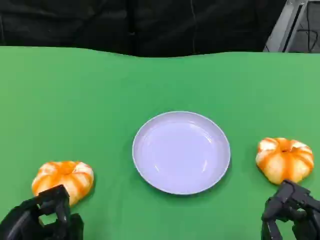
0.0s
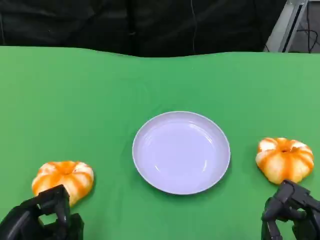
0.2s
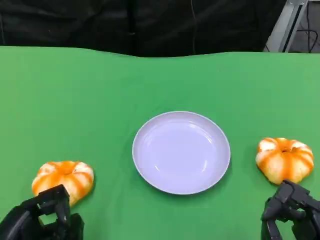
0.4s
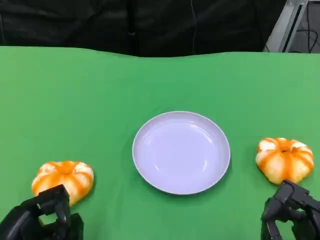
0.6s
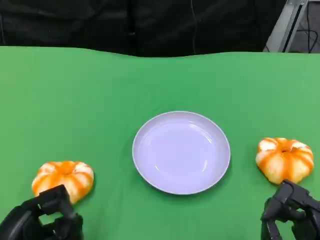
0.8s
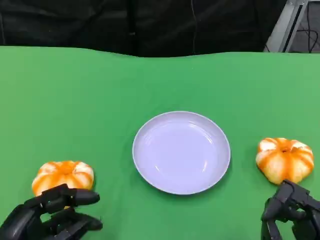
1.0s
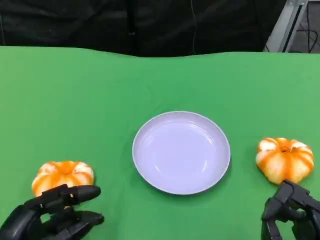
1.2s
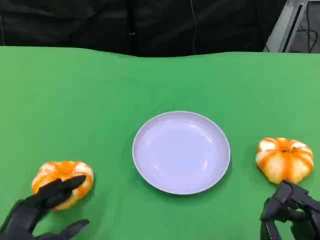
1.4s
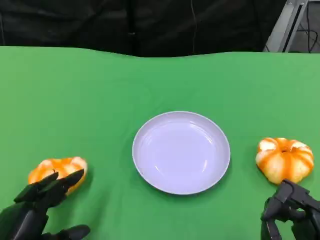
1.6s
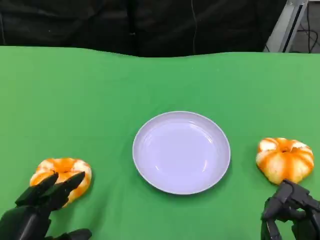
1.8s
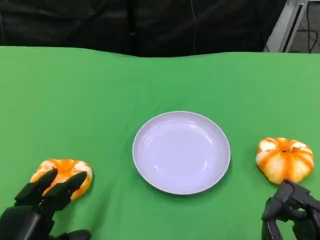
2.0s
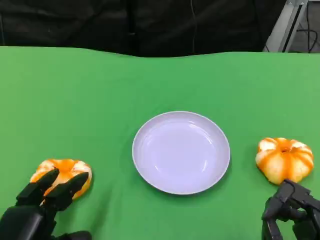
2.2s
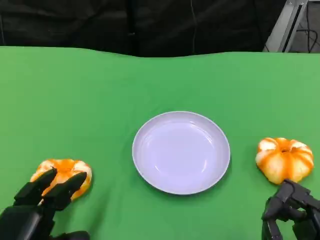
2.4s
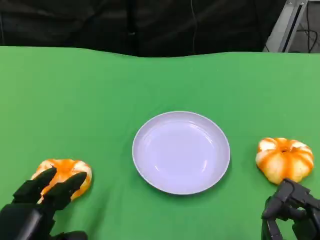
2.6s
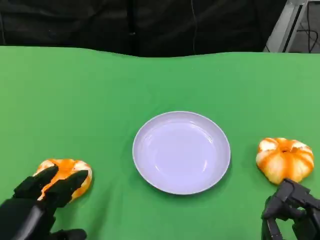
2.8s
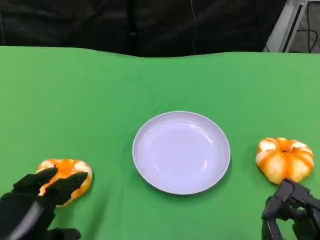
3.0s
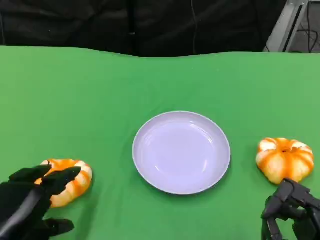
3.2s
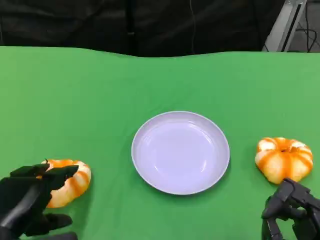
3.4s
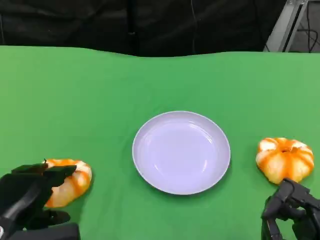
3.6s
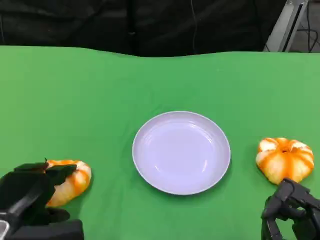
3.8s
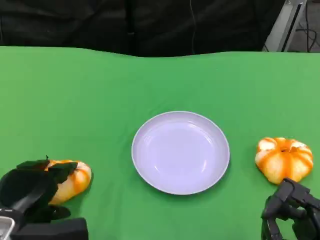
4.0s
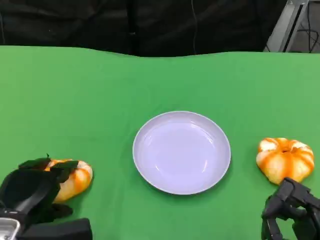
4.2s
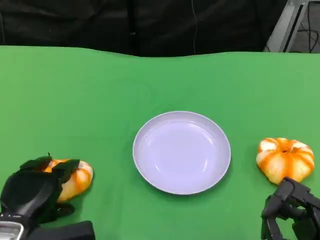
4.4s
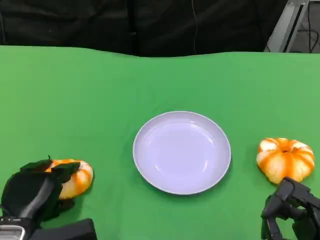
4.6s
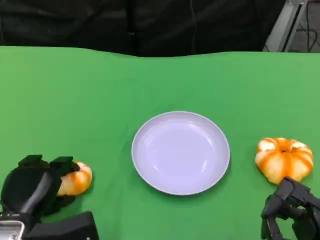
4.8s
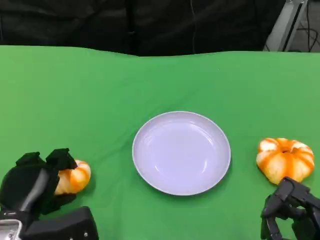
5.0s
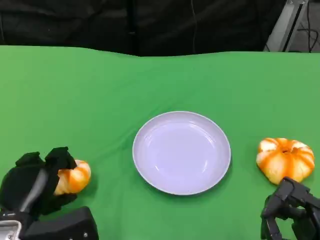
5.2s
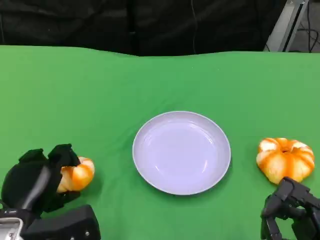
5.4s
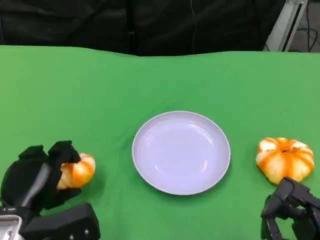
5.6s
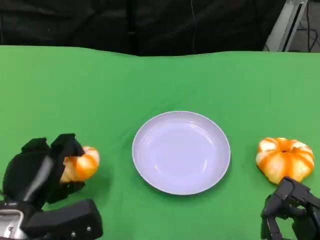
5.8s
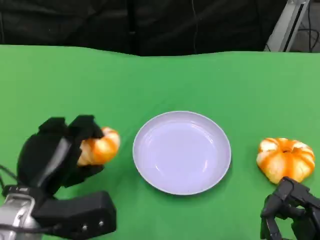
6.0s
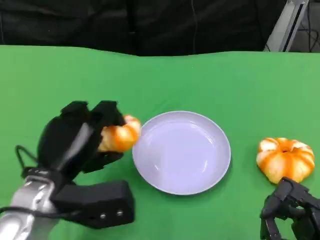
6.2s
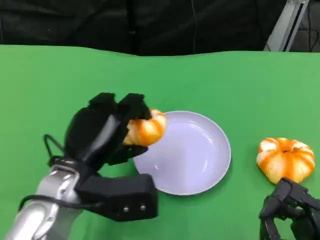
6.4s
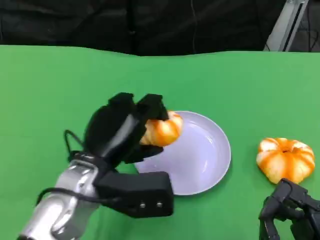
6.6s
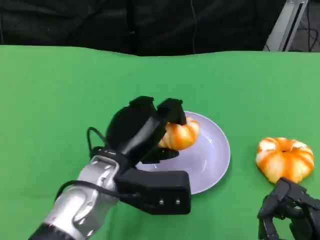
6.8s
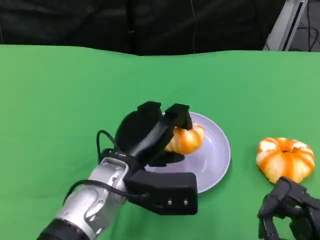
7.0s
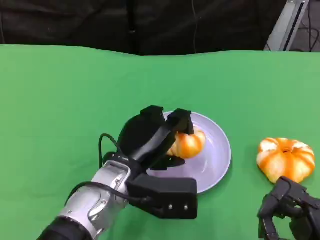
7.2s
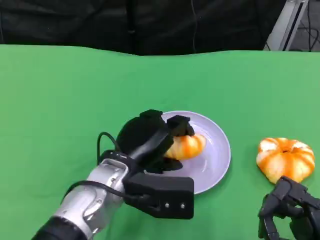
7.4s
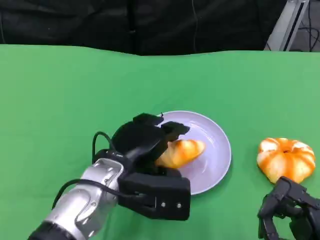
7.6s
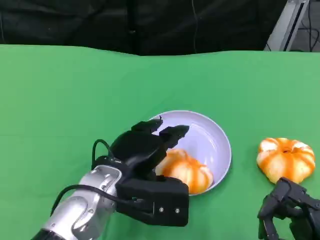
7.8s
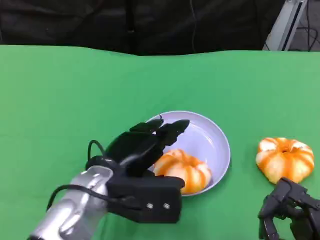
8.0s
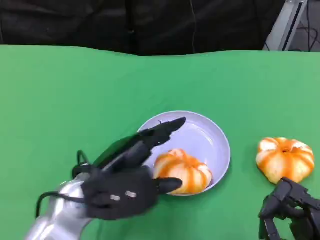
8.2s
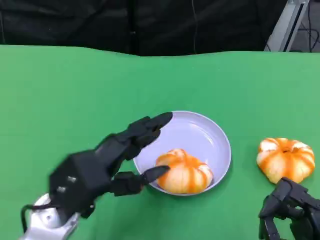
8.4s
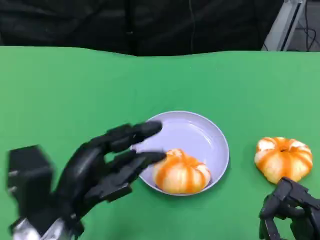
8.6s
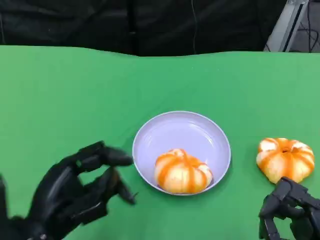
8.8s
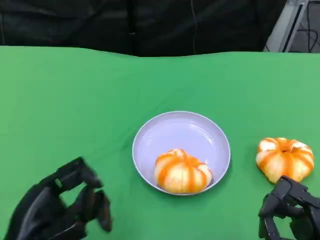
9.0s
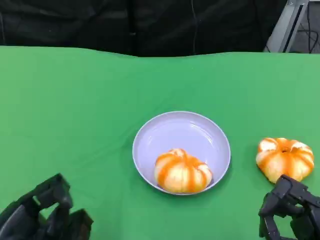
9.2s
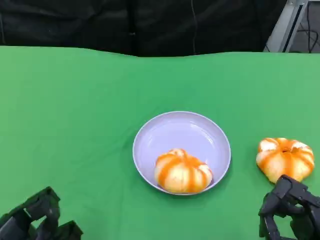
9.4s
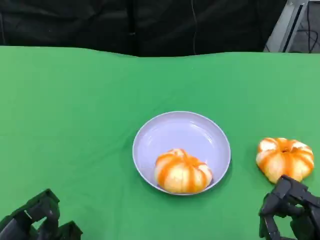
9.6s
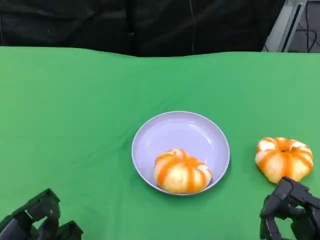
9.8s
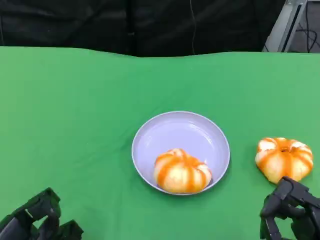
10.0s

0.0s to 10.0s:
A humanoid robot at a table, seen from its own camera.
Task of the whole recording: Grasp the bread from the table and place it into the plate.
2.8s to 4.2s: The left hand is displaced forward by roughly 5 cm.
5.8s to 7.2s: The left hand is displaced to the right by roughly 15 cm.
7.2s to 8.6s: The left hand travels to the left and backward by roughly 10 cm.
8.6s to 10.0s: The left hand moves to the left, downward and backward, some 15 cm.

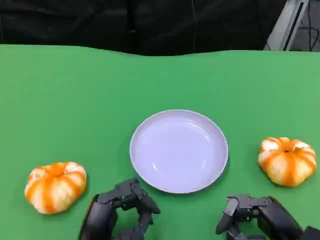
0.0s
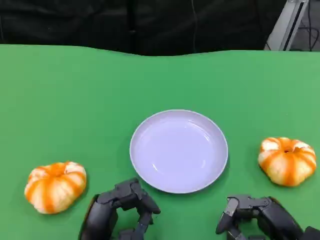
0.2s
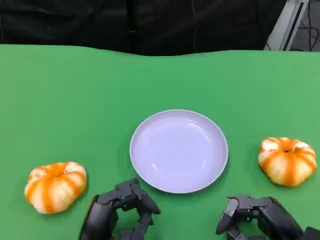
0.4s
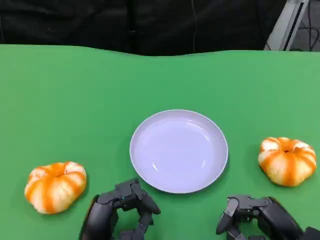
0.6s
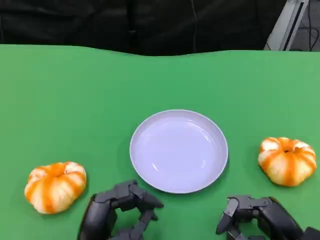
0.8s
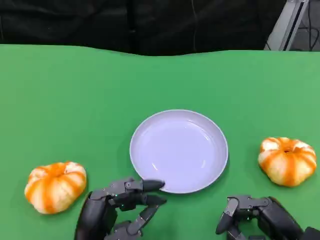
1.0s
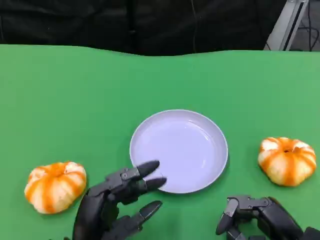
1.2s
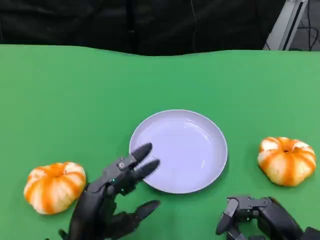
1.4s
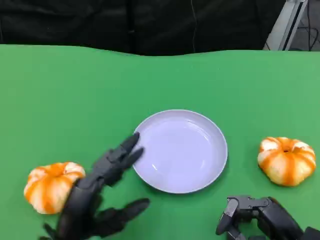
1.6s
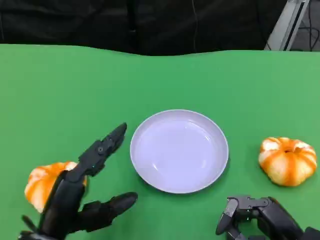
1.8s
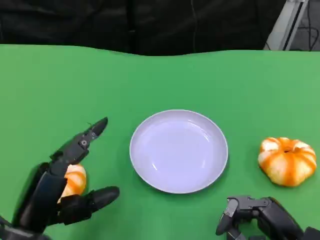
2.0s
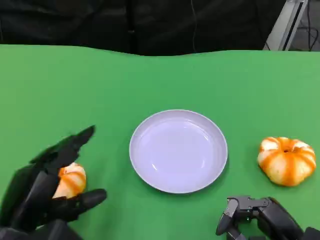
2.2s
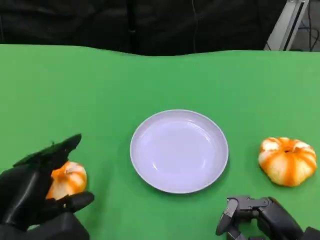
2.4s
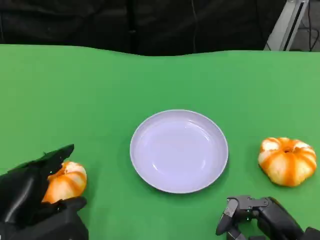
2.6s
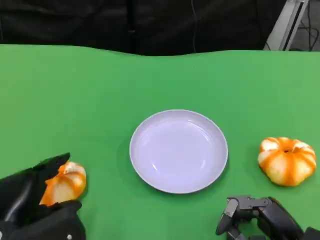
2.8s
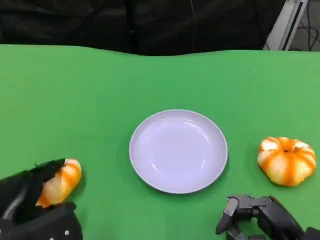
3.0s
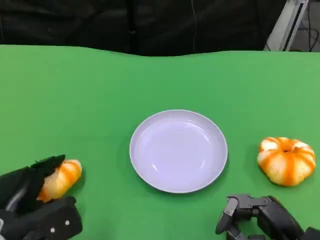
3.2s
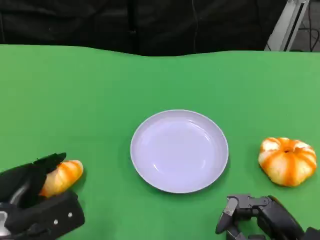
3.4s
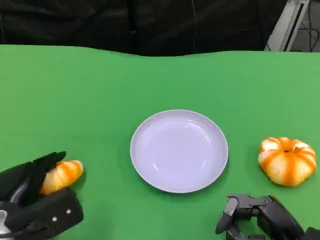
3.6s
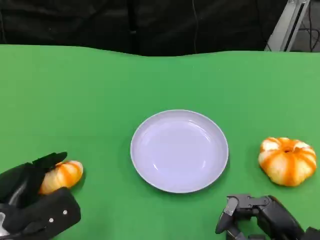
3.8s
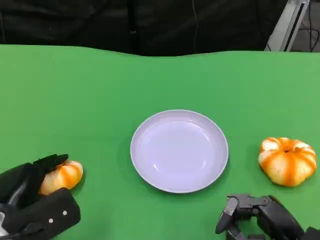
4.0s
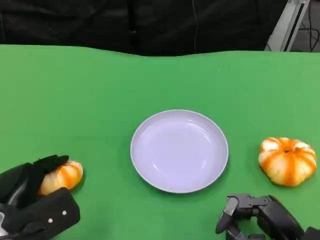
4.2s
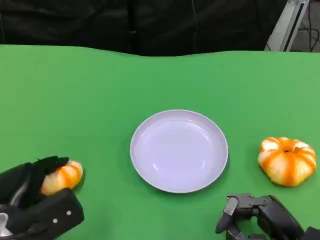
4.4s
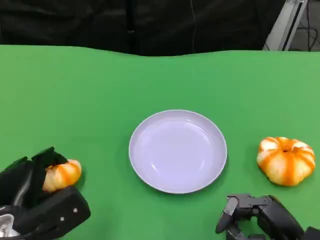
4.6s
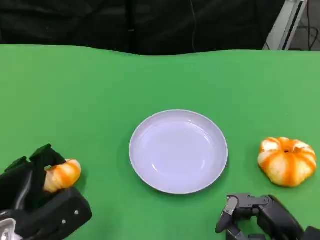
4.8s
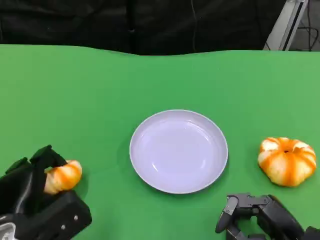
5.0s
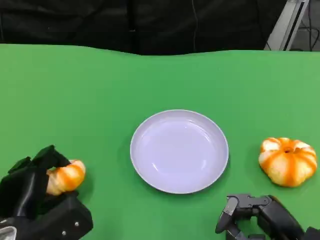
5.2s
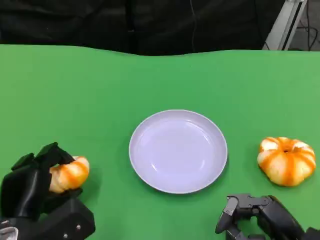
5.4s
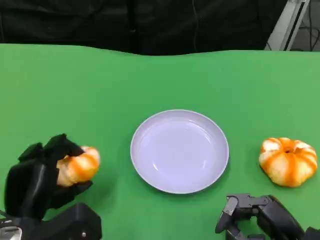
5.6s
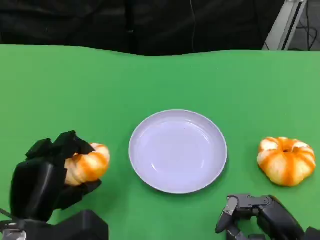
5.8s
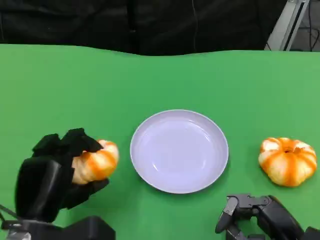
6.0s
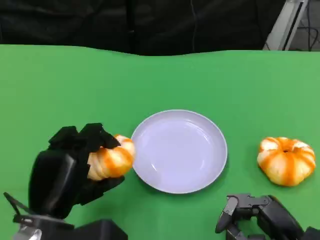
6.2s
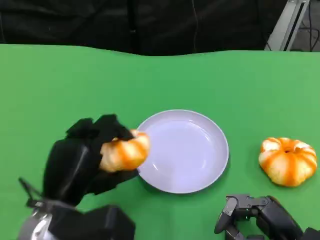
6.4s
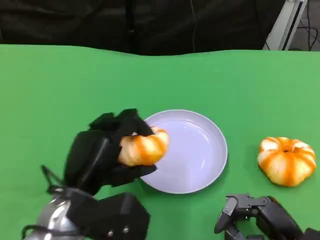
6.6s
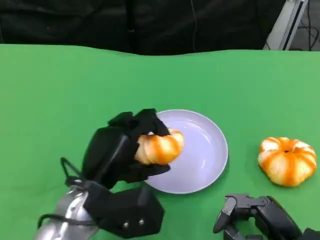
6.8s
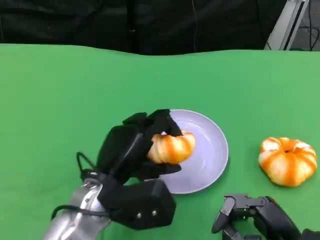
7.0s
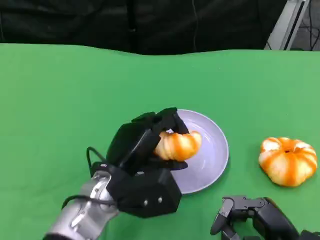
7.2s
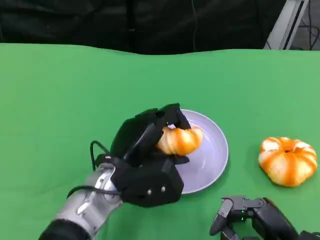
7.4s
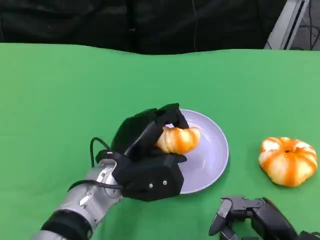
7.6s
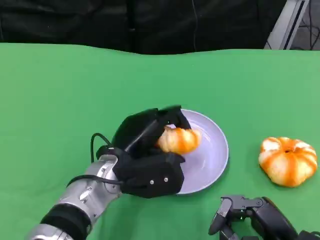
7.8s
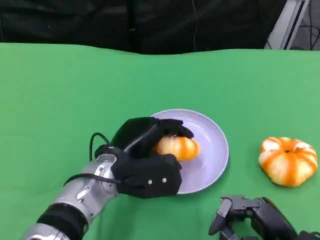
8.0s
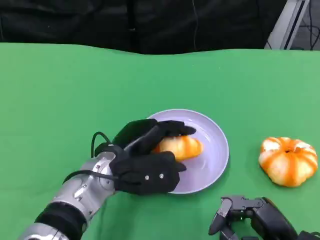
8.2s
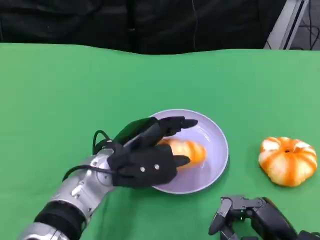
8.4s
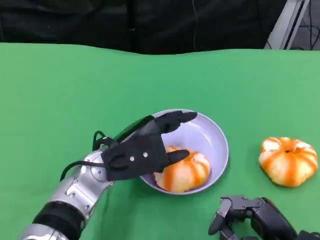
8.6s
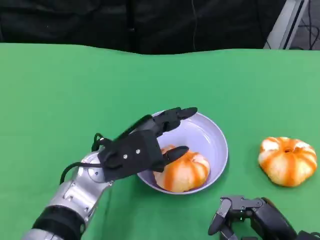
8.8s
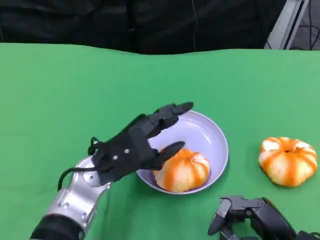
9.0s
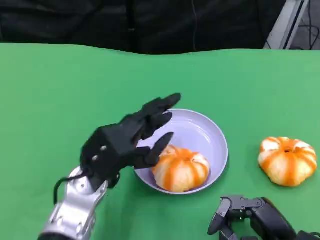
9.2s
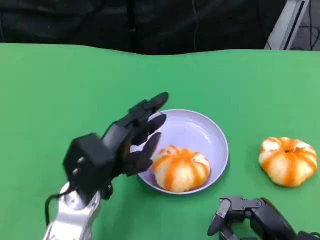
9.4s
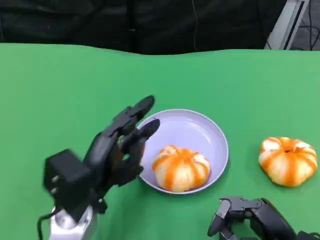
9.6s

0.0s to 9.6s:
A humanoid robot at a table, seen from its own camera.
Task of the whole recording: Grasp the bread from the table and place it into the plate.
0.0s to 1.6s: The left hand ends up approximately 5 cm from where it was.
1.6s to 3.2s: The left hand heads to the left, covering roughly 5 cm.
3.2s to 4.8s: The hands move only a little.
4.8s to 6.4s: The left hand heads upward and to the right, covering about 10 cm.
6.4s to 8.0s: The left hand travels forward and to the right by roughly 10 cm.
8.0s to 9.6s: The left hand is displaced backward by some 5 cm.

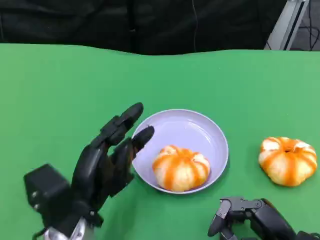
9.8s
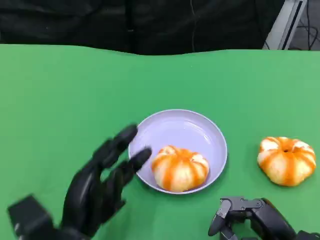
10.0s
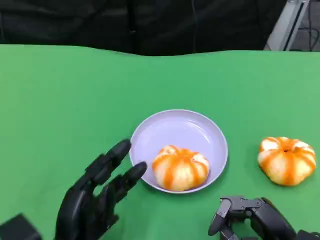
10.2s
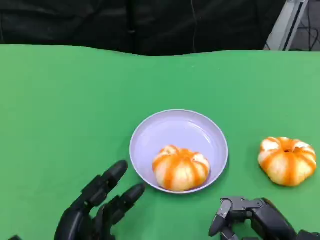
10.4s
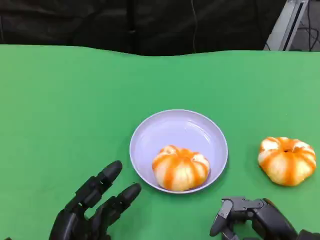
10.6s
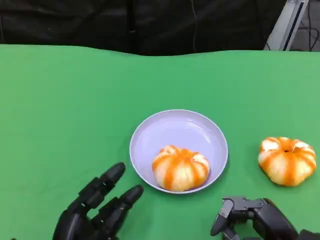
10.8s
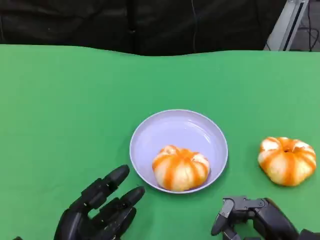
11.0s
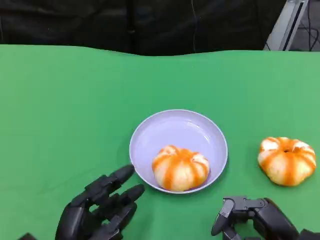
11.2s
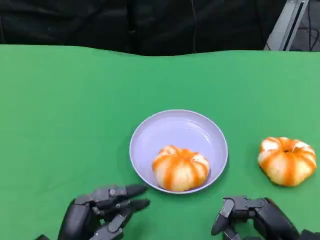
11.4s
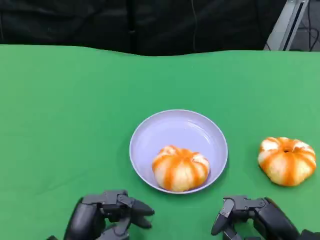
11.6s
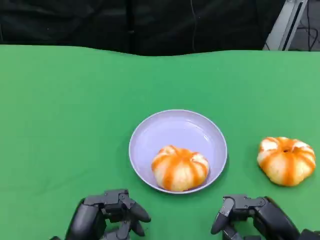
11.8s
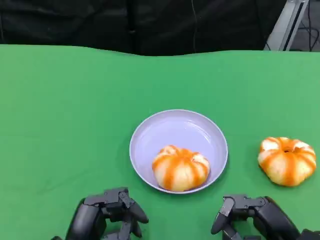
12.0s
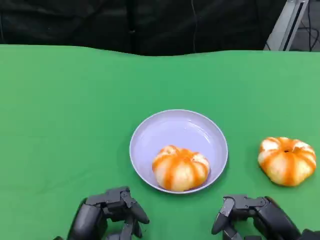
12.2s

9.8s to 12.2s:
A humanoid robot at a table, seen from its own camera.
Task of the whole recording: Grasp the bread from the table and place it into the plate.
9.8s to 11.0s: The left hand shifts roughly 5 cm backward.
